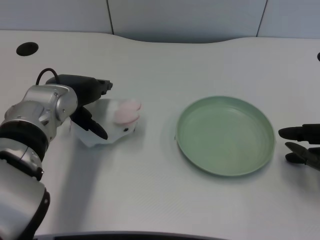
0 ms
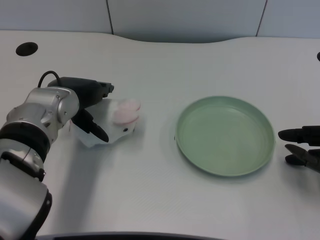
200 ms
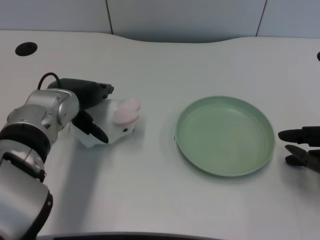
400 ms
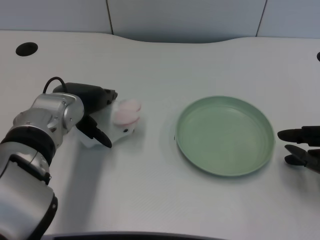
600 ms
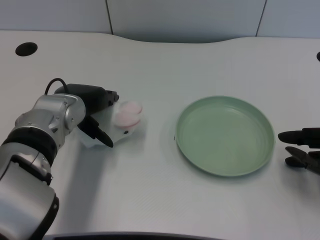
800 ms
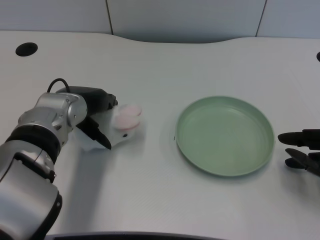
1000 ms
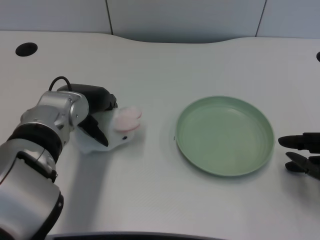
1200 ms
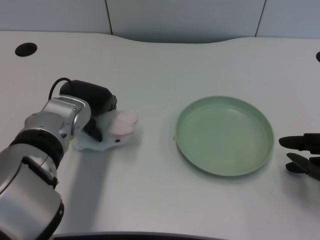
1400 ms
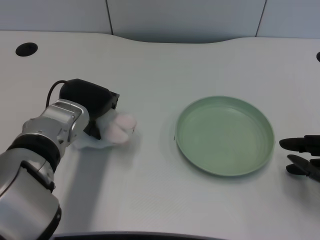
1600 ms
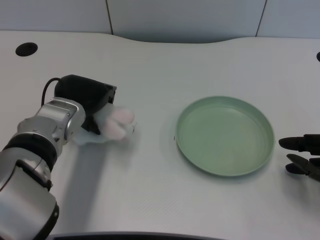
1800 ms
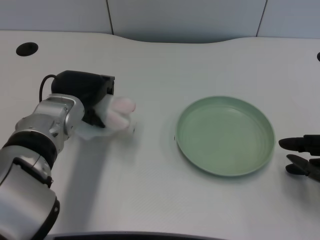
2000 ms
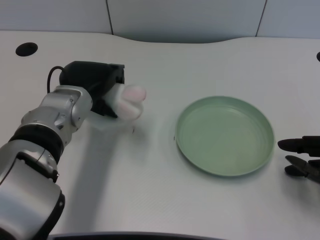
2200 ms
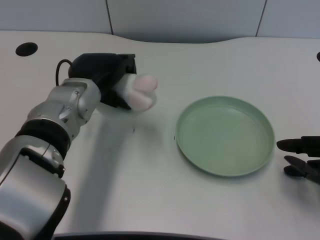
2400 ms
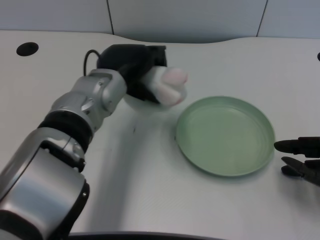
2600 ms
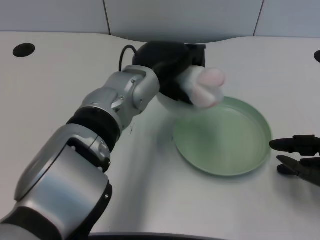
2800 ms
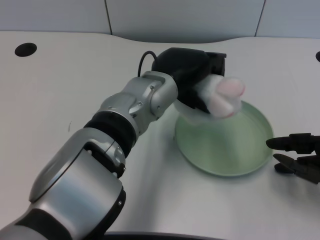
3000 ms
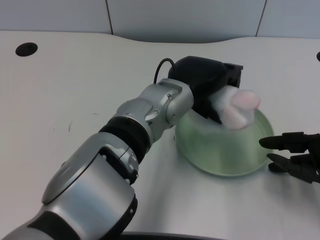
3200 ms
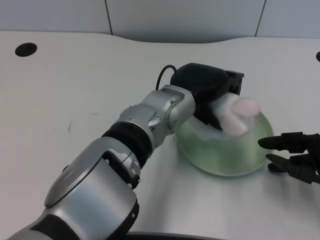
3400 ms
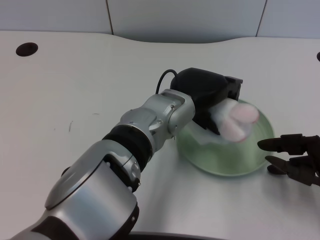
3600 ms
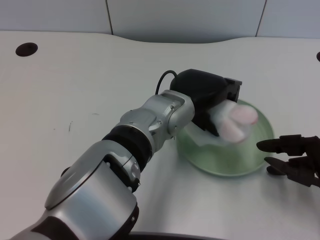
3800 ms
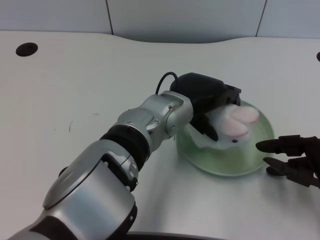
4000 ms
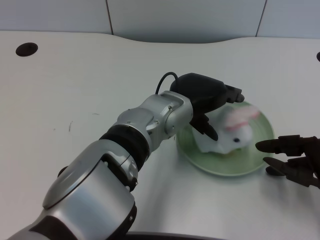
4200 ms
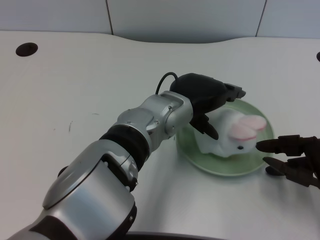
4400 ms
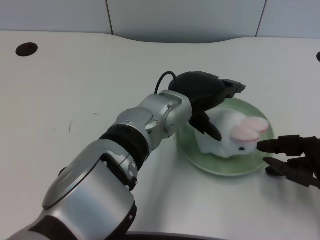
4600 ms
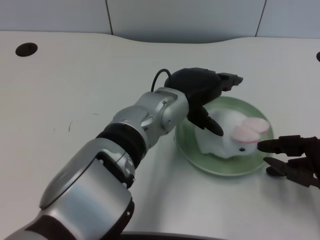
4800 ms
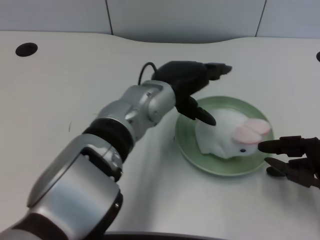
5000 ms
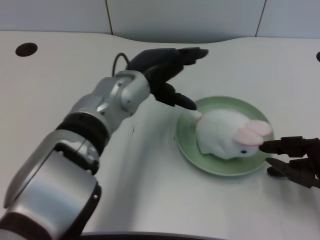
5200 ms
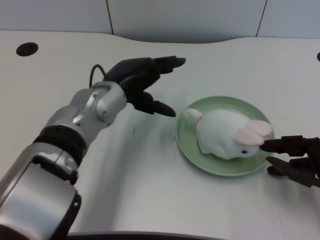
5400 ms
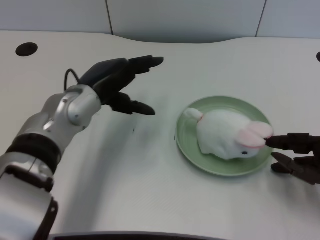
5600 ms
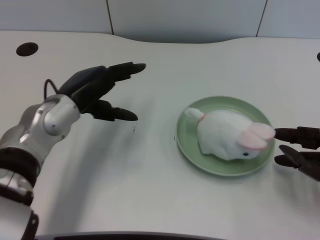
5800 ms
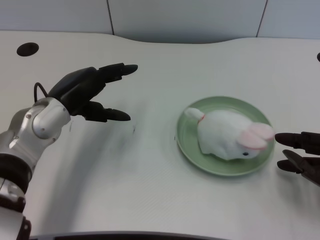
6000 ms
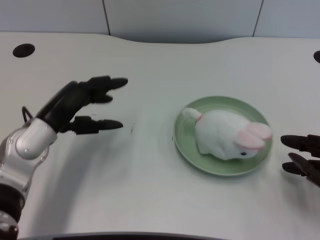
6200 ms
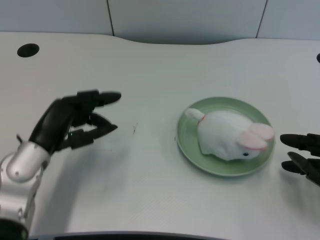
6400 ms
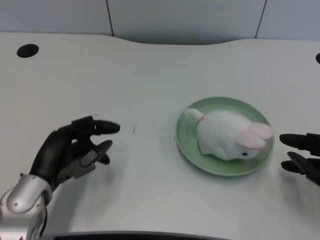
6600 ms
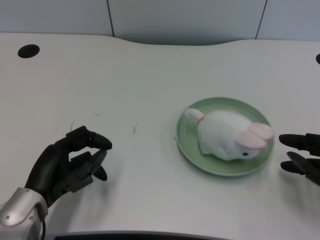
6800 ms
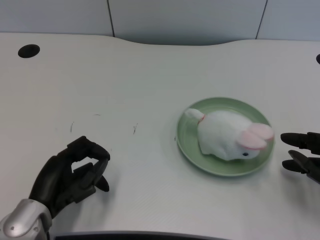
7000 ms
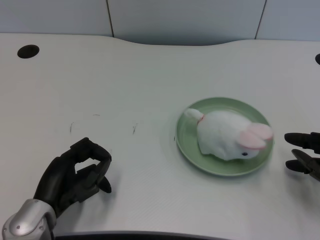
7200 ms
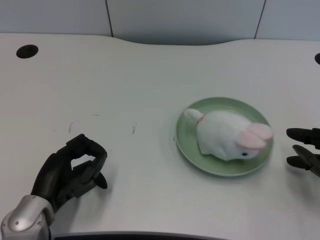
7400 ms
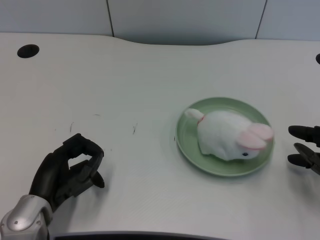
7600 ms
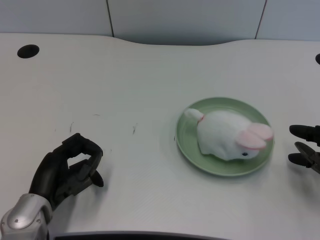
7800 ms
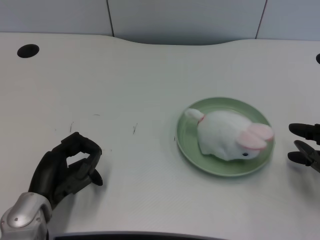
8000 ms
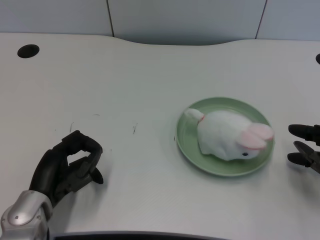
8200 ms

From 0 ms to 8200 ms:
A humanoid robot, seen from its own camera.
Task of the whole recording: pick up the rabbit doll from the table and place it on the plate.
Step, from 2200 ms to 4600 ms: Place the rabbit doll into the plate with the left gripper.
From 0 ms to 1600 ms: There are only small adjustments of the hands.
From 1600 ms to 3200 ms: The left hand is displaced to the right by about 15 cm.
From 5000 ms to 6600 ms: The left hand moves to the left, downward and backward, roughly 20 cm.
From 6600 ms to 8200 ms: There are only small adjustments of the hands.

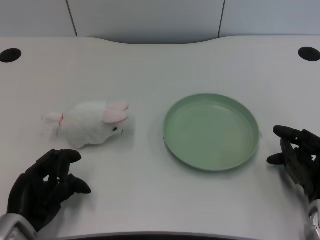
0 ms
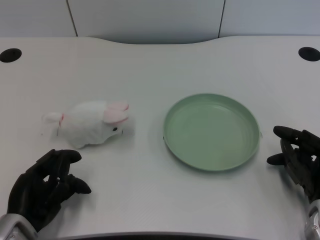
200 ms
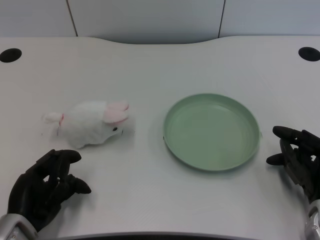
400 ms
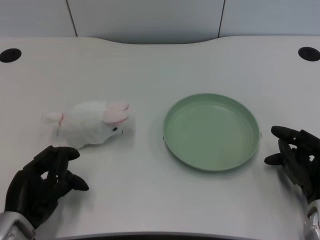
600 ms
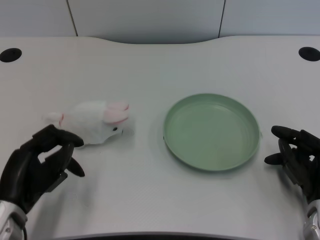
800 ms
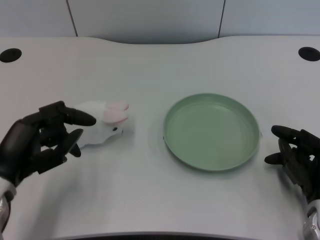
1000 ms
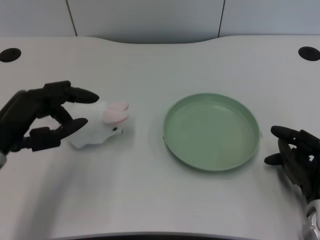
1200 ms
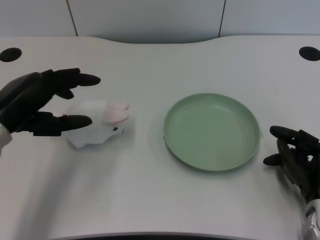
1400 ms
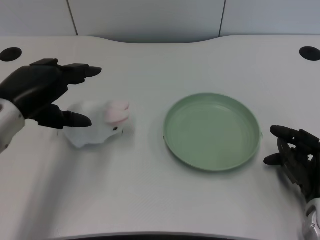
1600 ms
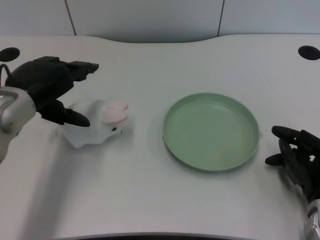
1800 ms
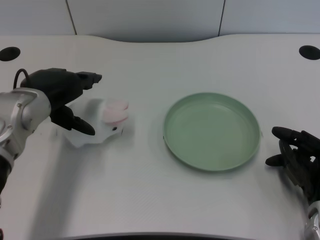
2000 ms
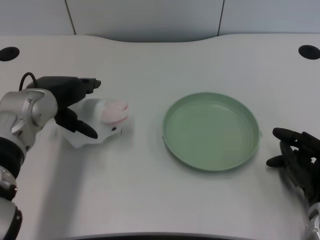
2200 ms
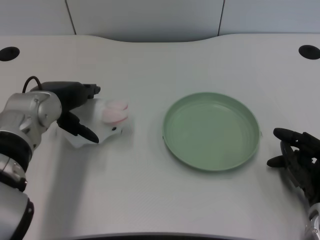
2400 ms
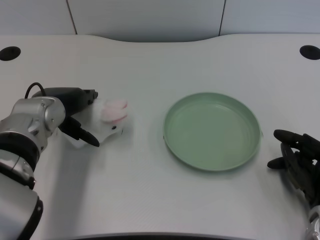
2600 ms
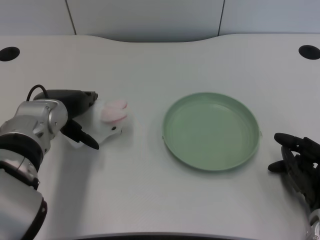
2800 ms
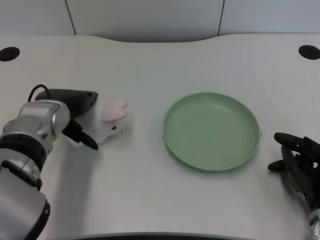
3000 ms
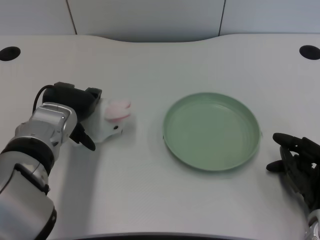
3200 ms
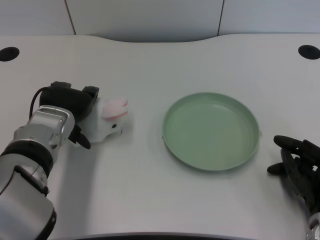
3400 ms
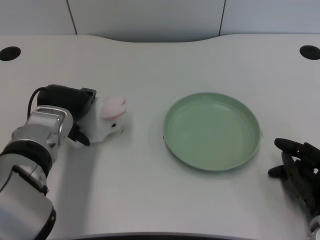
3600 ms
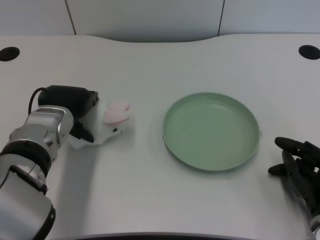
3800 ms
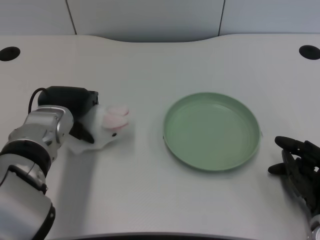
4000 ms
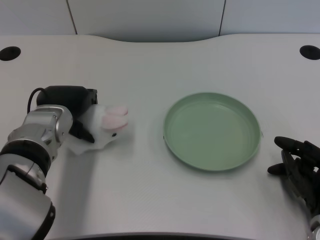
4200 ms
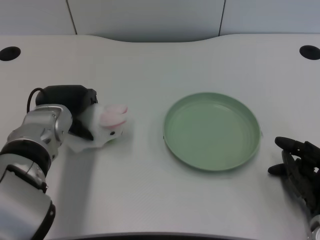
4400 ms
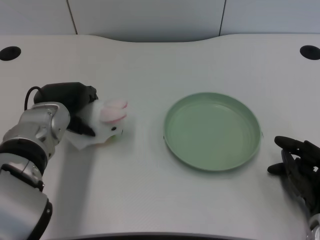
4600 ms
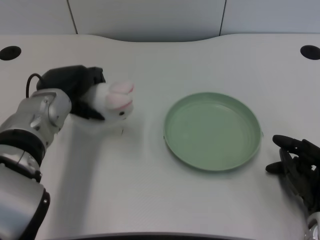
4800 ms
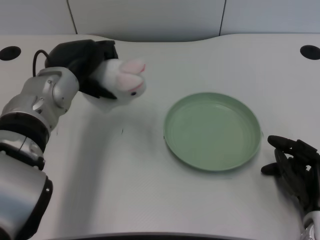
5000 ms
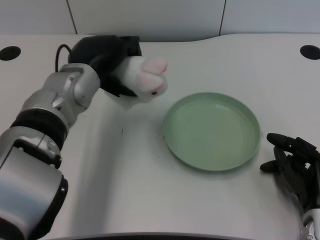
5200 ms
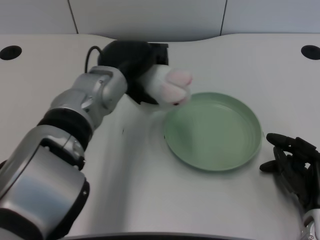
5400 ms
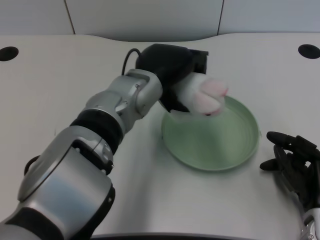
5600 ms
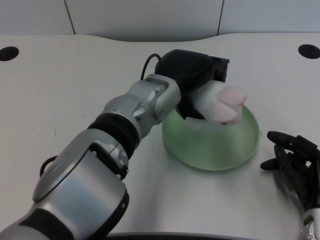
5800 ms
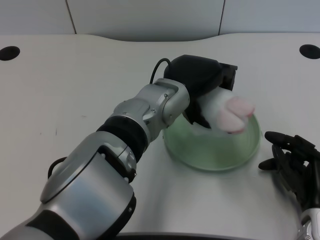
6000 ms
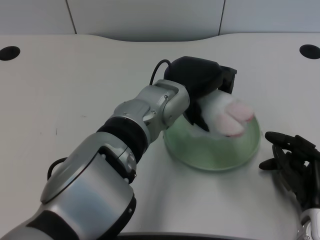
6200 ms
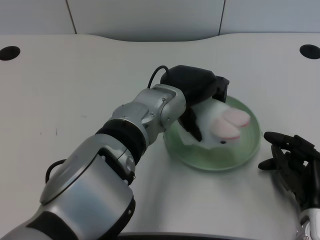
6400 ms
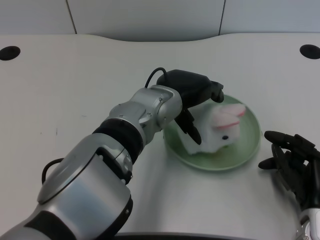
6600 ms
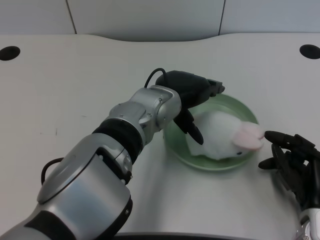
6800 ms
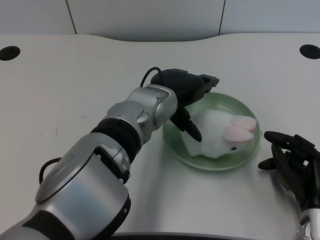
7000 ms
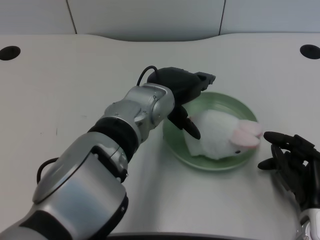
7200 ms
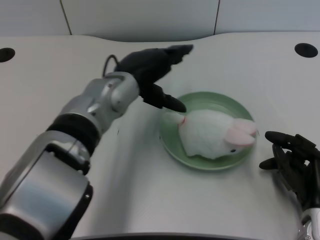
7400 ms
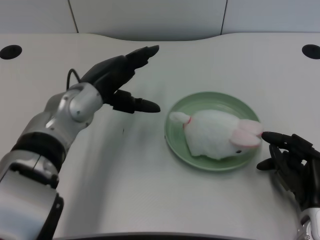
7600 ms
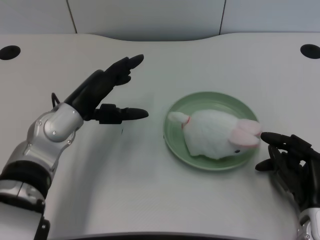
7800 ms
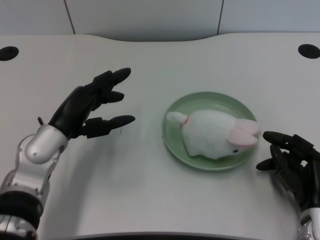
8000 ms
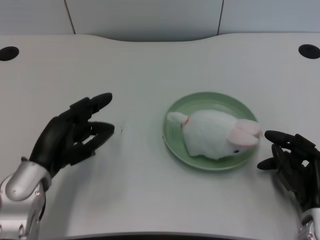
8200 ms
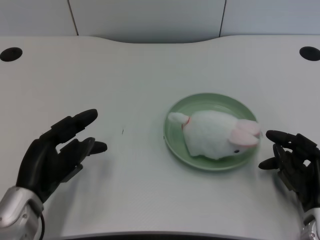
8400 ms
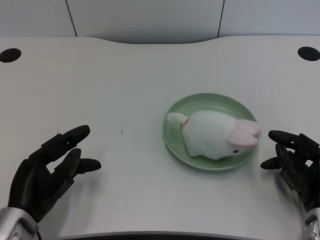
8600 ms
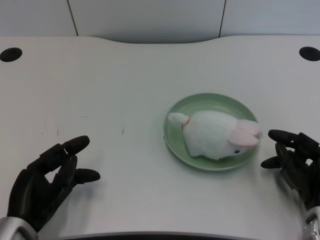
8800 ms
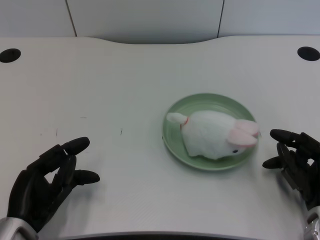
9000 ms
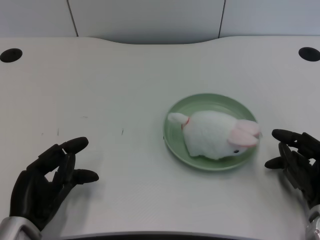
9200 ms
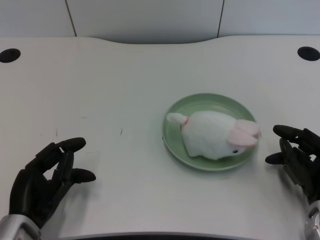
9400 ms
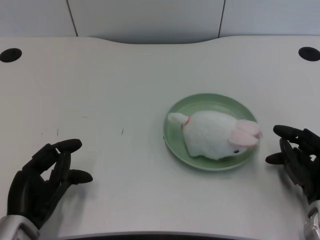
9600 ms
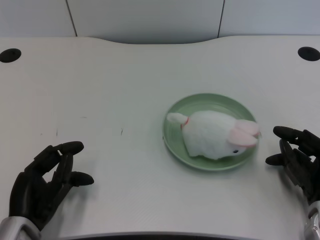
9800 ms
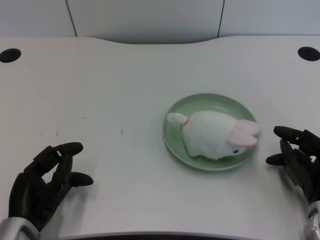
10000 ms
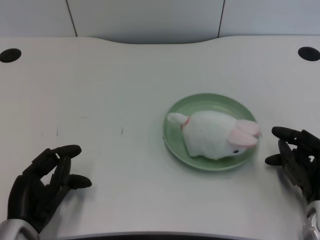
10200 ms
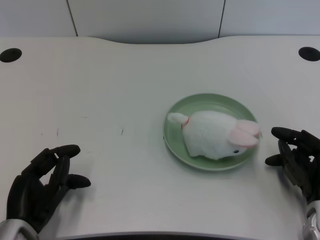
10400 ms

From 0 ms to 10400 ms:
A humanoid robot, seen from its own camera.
Task of the whole recording: pick up the rabbit doll from the table and place it on the plate.
Step, from 800 ms to 4600 ms: Grasp the rabbit doll with the left gripper.
Step, from 4800 ms to 6600 ms: Place the rabbit doll into the plate with the left gripper.
From 1400 ms to 3000 ms: The left hand moves forward and to the right, some 10 cm.
From 3000 ms to 4400 ms: The hands make only small movements.
From 4400 ms to 6000 ms: The left hand heads to the right, covering approximately 15 cm.
From 6000 ms to 7400 ms: The left hand is displaced to the left by roughly 10 cm.
From 7400 ms to 9000 ms: The left hand goes roughly 25 cm backward, to the left and downward.
From 9000 ms to 10400 ms: The hands move only a little.

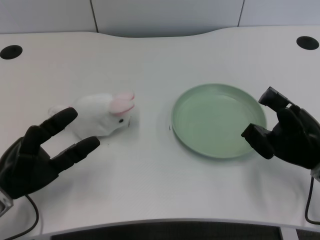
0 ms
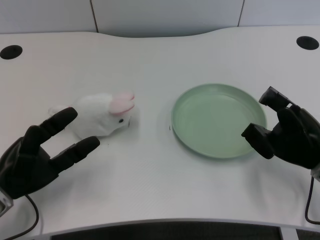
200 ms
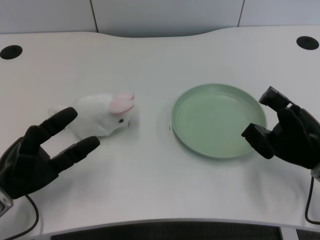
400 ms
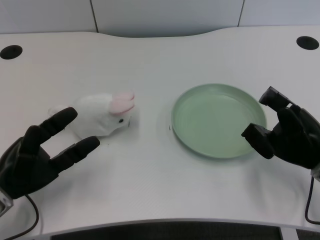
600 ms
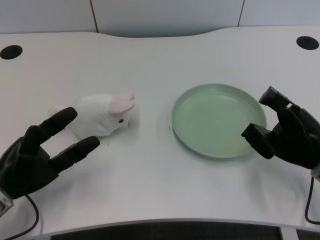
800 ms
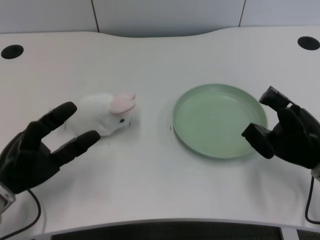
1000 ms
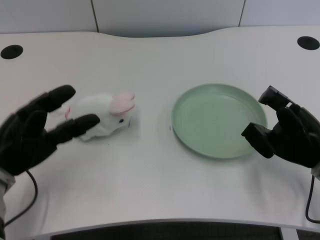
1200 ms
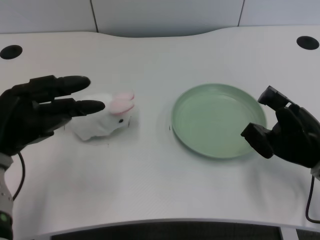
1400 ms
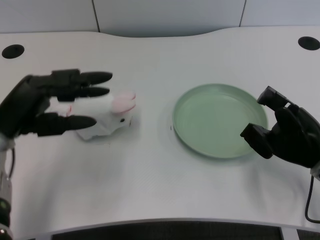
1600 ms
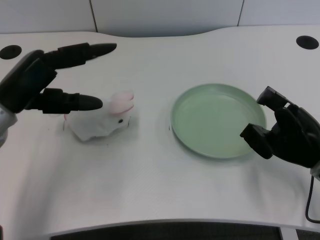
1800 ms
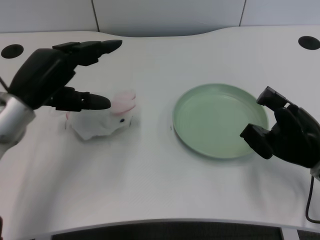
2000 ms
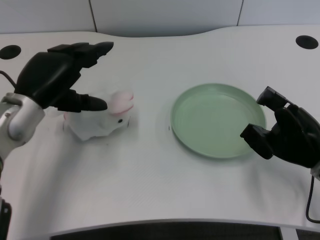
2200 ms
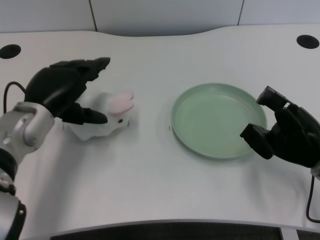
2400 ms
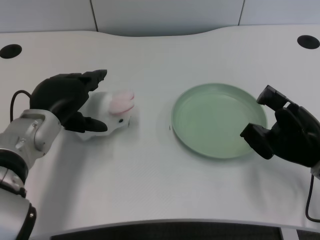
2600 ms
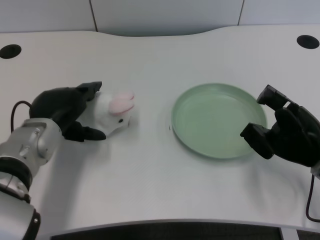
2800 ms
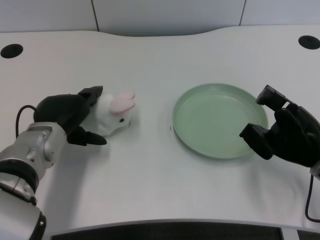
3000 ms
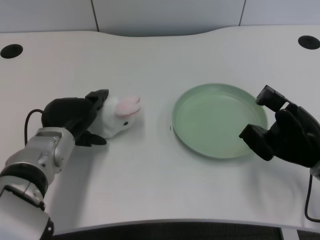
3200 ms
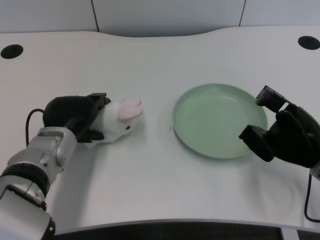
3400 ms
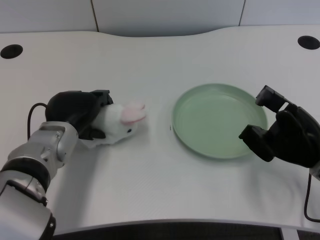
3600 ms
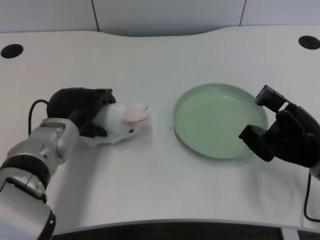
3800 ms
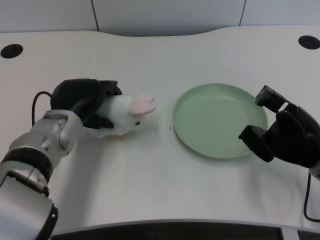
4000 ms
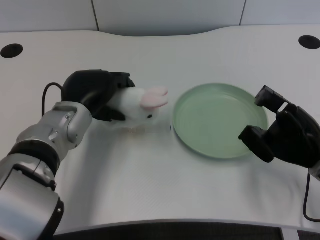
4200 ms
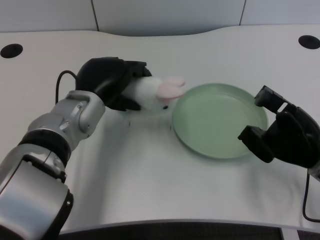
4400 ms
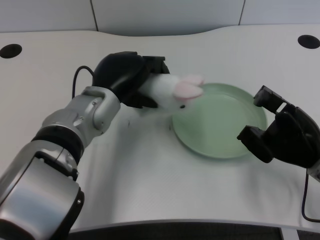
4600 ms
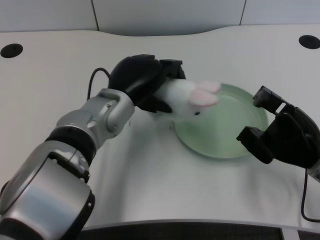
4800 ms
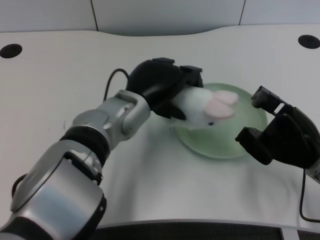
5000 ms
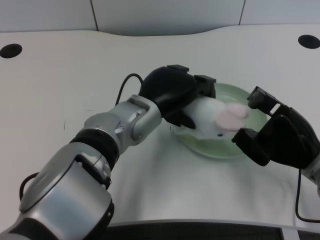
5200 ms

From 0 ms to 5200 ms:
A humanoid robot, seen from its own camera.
Task of the whole recording: pick up the rabbit doll from the table and place it on the plate.
Step, from 1200 ms to 3800 ms: Grasp the rabbit doll with the left gripper.
From 1800 ms to 3400 ms: The left hand travels downward and to the right by some 10 cm.
From 3400 ms to 5200 ms: The left hand moves to the right and upward, approximately 15 cm.
